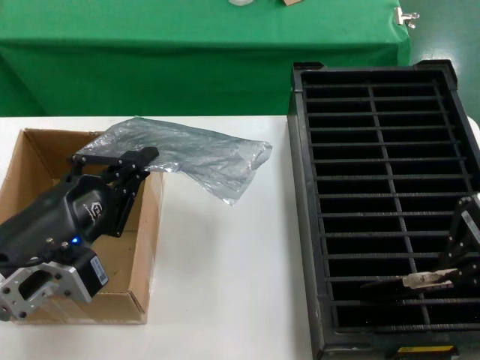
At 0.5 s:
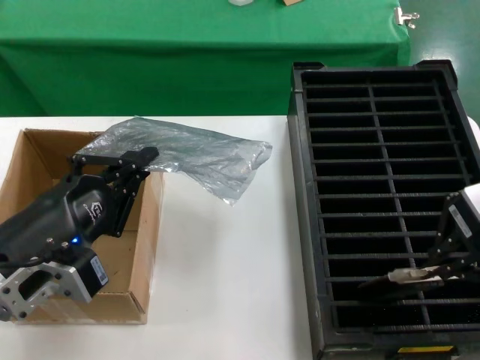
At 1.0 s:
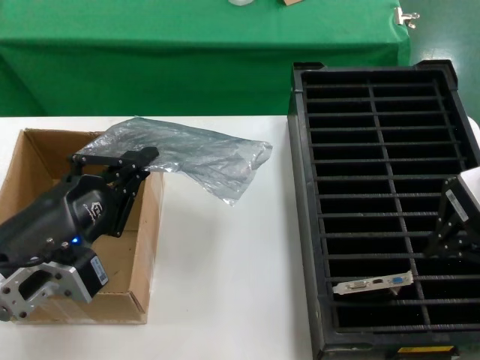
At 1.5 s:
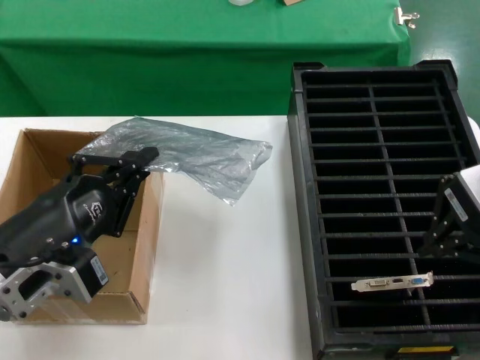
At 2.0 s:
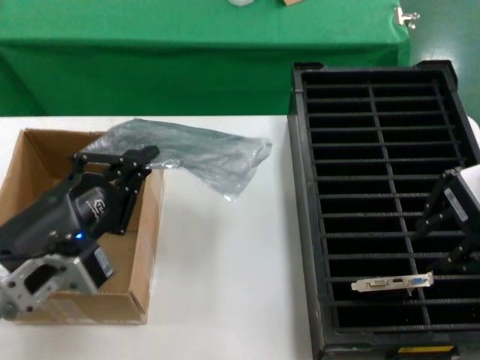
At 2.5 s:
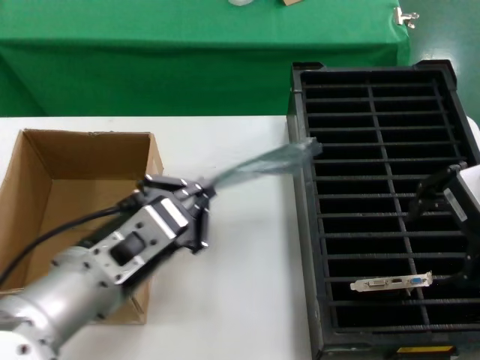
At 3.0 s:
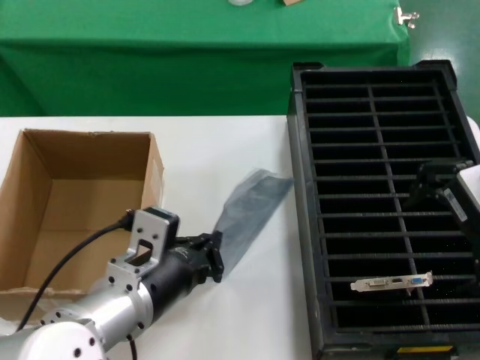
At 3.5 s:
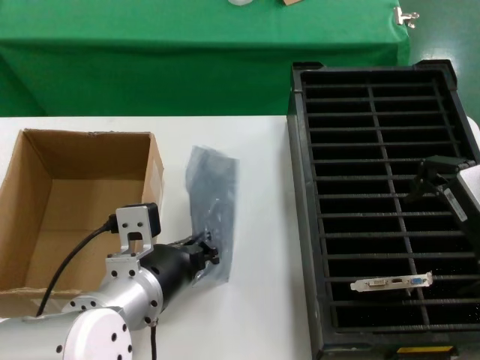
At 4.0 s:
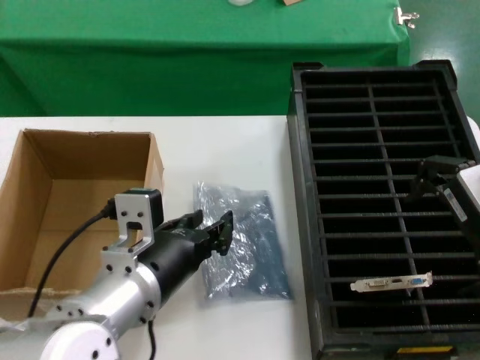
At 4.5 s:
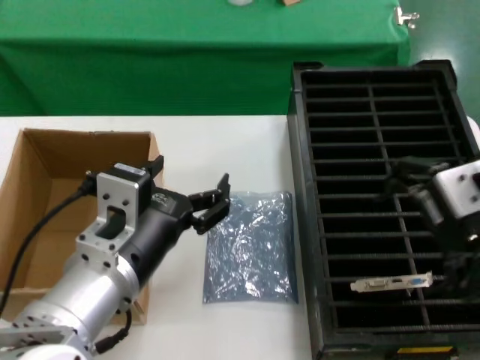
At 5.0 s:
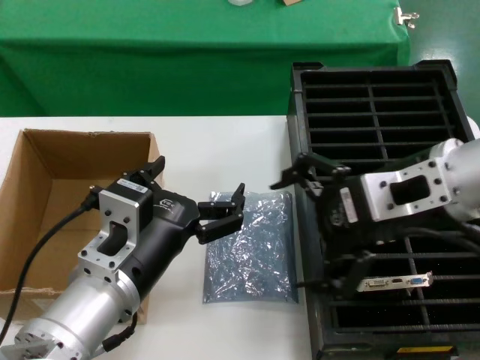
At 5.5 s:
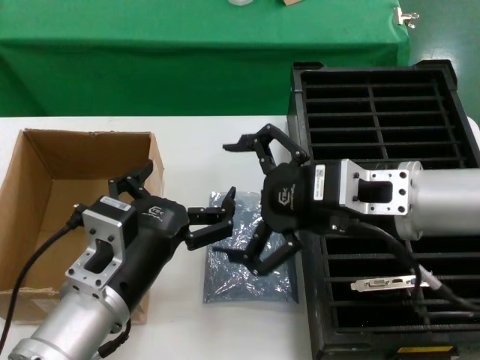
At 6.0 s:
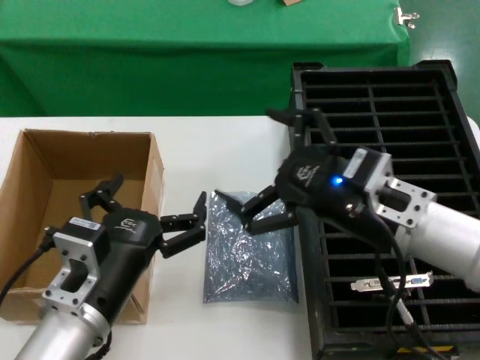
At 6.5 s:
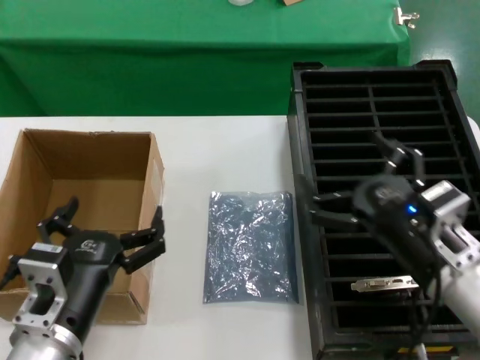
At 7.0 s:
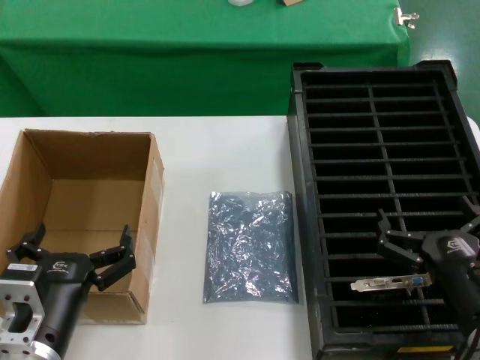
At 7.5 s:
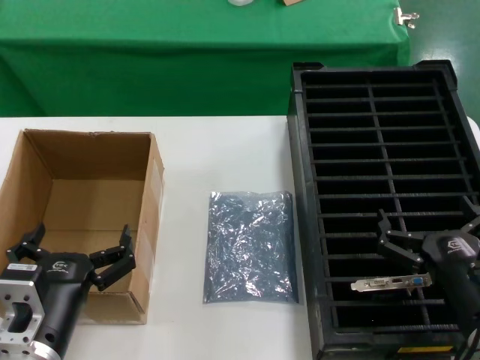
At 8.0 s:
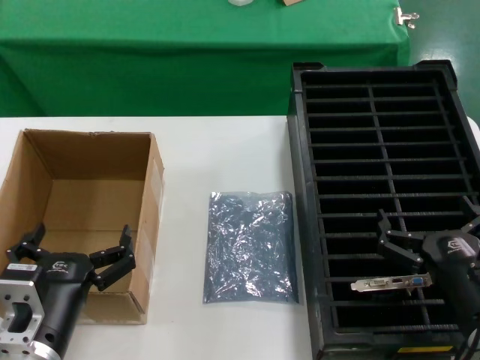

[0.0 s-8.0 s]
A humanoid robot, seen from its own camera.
Task of the whole recording: take out graphics card from box remove packaging put into black container.
Step, 1.0 to 4.0 s: Place the down the bag.
0.0 to 2.0 s: The hands move only a little.
2.0 to 4.0 s: The left hand goes some 10 cm to the right.
4.0 to 6.0 s: The left hand goes about 5 cm downward. The right hand goes about 20 cm downward.
6.0 to 8.0 s: The left hand is displaced downward by roughly 5 cm; the right hand goes roughly 15 cm downward, to the right and backward.
